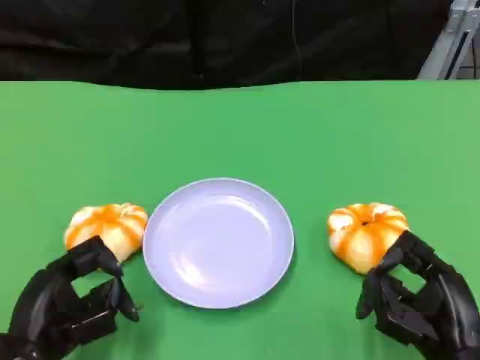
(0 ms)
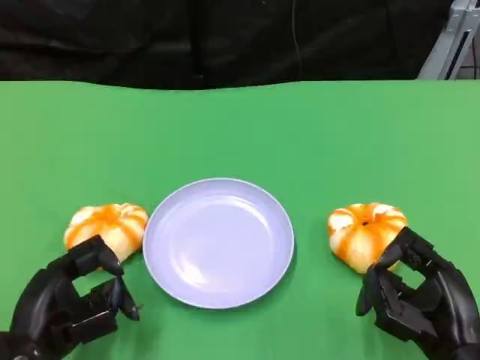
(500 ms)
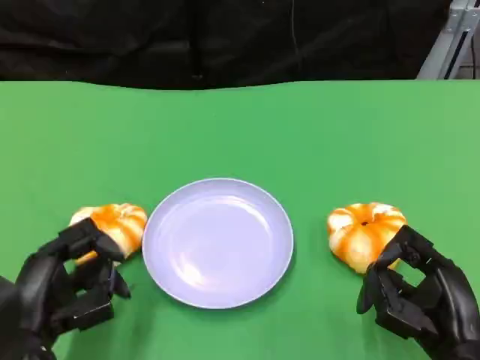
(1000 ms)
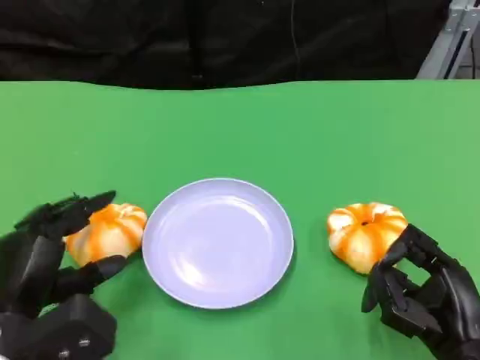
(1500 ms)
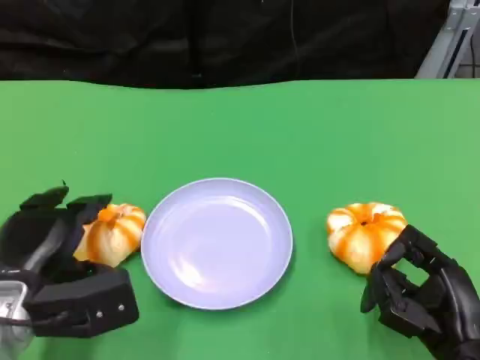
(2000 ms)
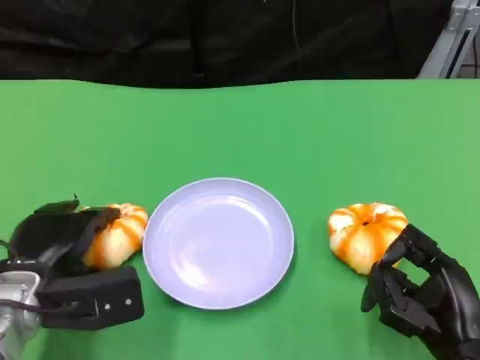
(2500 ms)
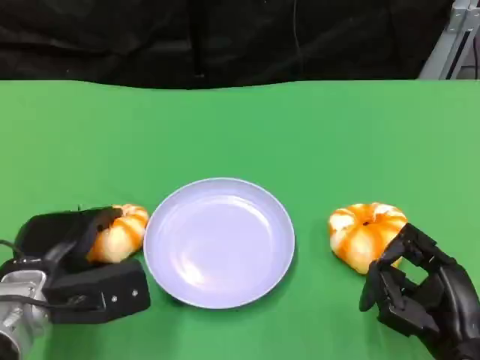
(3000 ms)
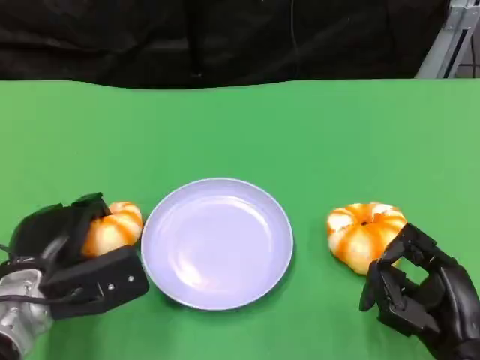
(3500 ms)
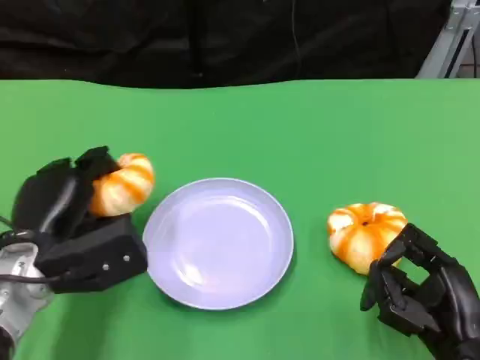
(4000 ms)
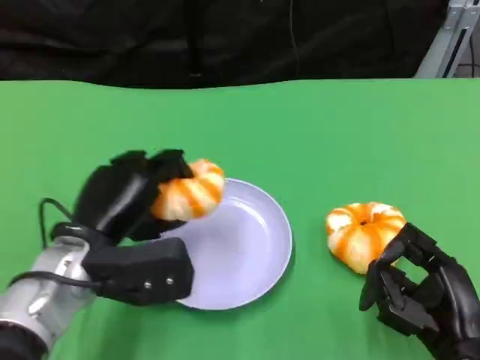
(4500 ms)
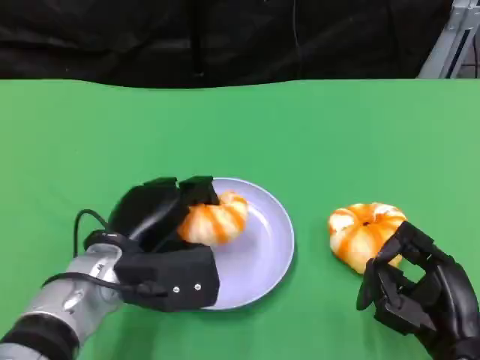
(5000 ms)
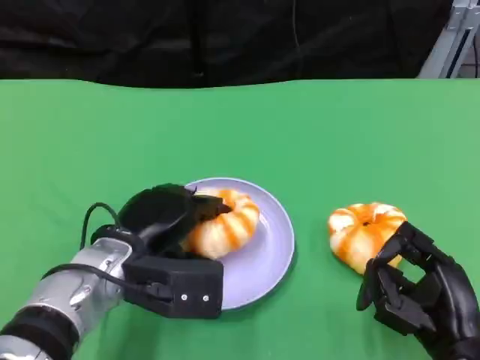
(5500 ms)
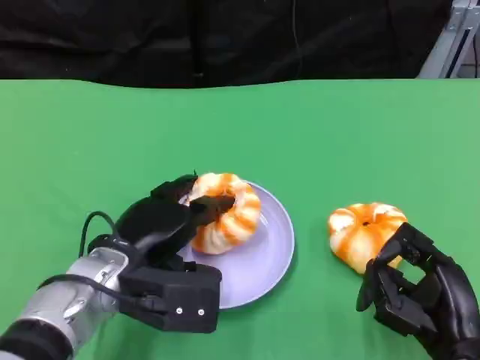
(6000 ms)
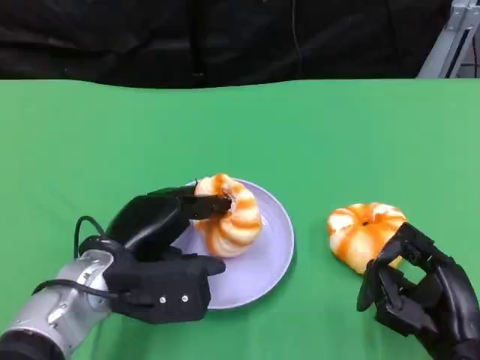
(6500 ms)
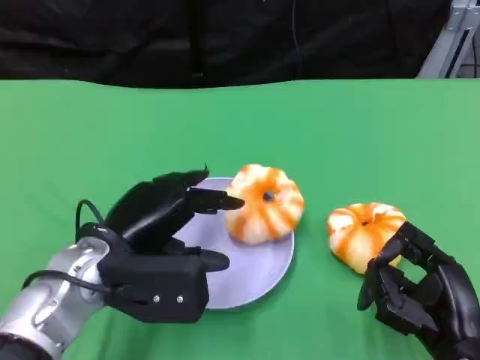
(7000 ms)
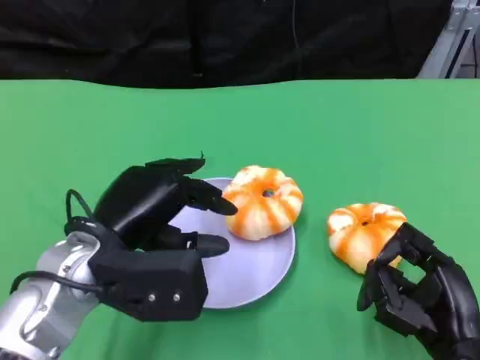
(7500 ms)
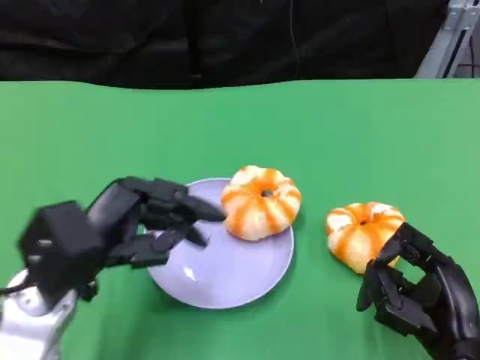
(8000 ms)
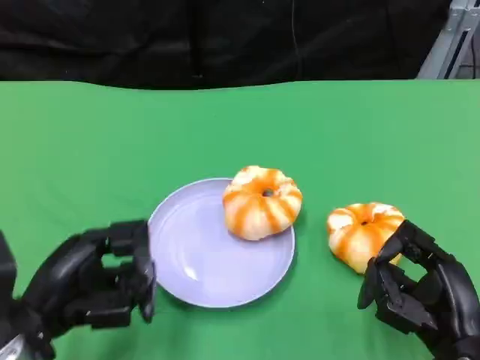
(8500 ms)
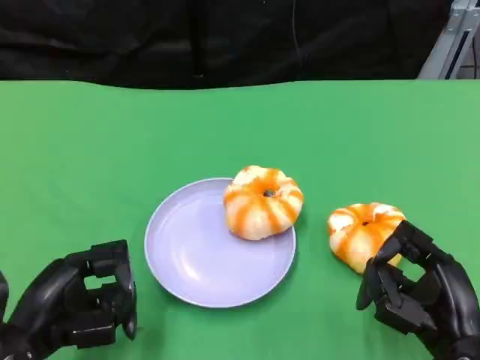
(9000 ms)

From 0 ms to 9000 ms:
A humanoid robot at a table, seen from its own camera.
Task of the whole recording: Grasp the bread from the table and place it into the plate.
From 0 ms to 2000 ms: The left hand is displaced forward by some 5 cm.
From 2000 ms to 4500 ms: The left hand moves to the right, approximately 5 cm.
From 7000 ms to 9000 ms: The left hand shifts some 10 cm to the left and backward.

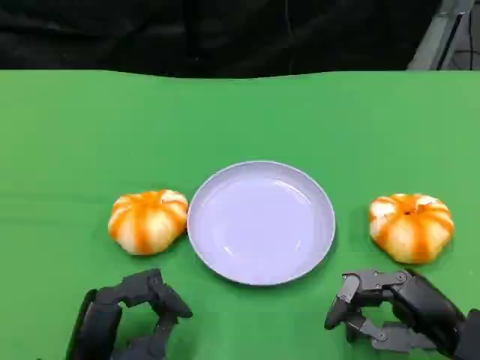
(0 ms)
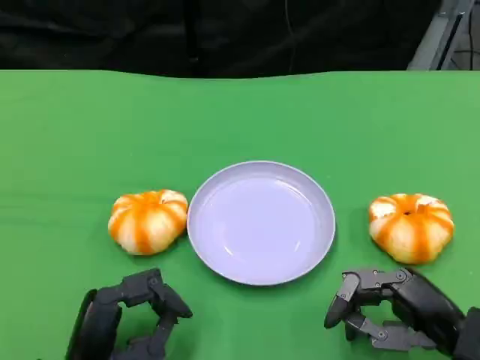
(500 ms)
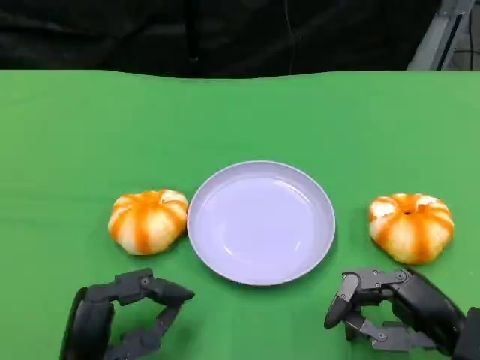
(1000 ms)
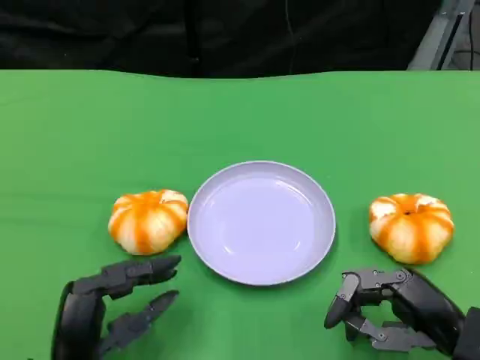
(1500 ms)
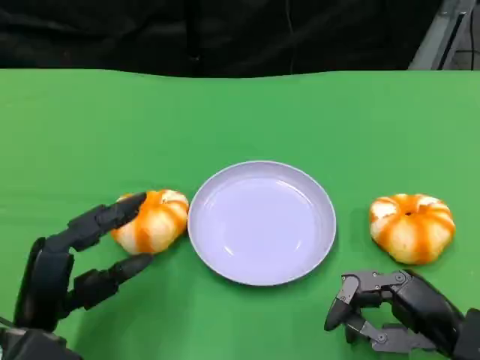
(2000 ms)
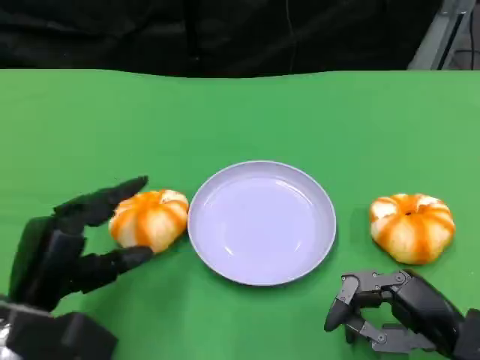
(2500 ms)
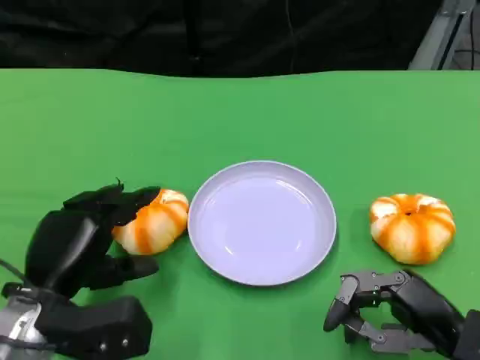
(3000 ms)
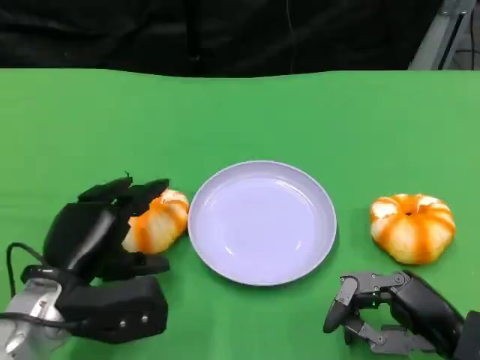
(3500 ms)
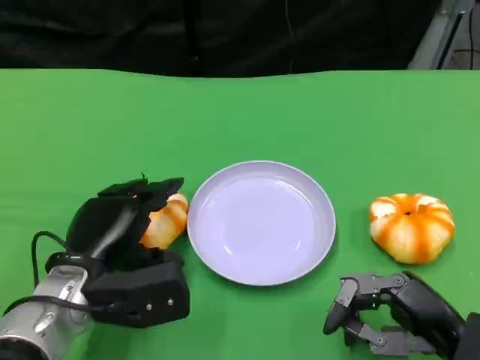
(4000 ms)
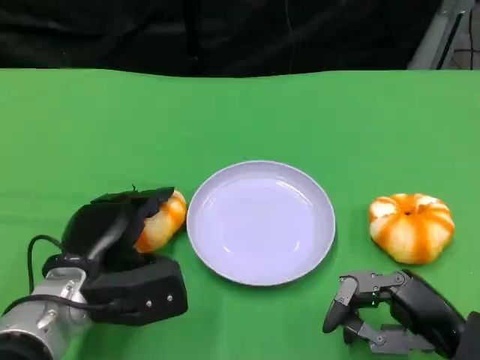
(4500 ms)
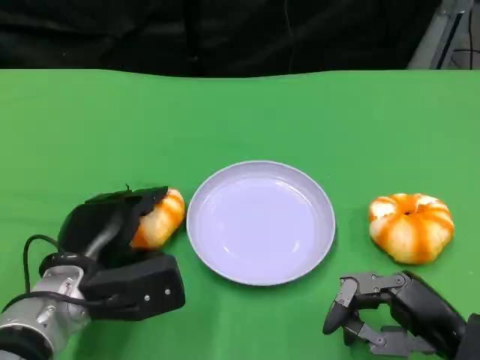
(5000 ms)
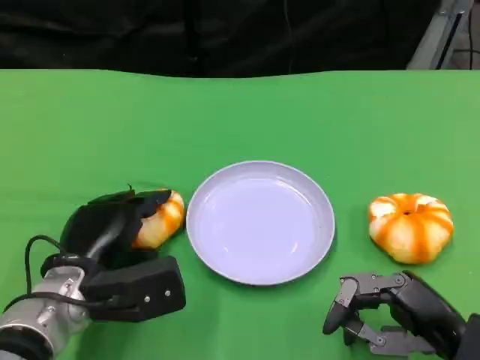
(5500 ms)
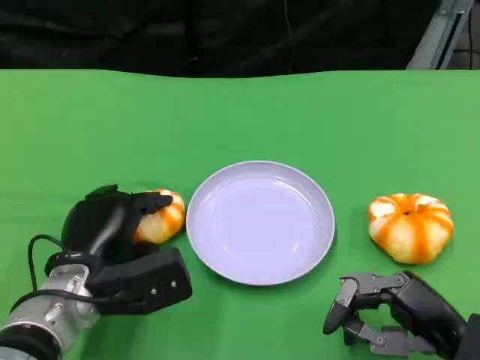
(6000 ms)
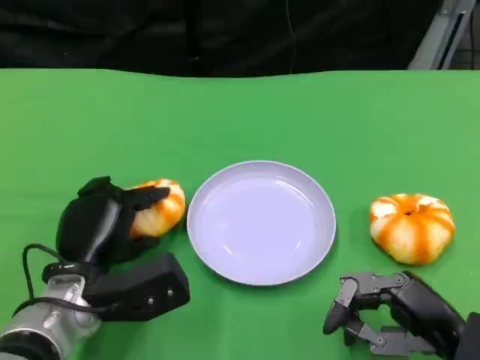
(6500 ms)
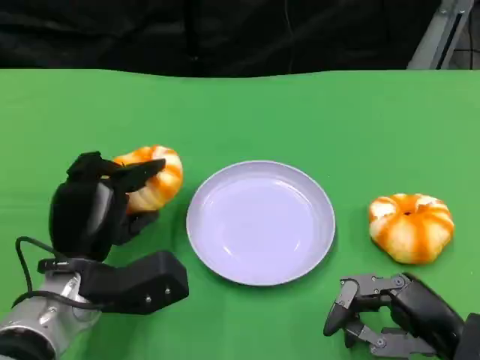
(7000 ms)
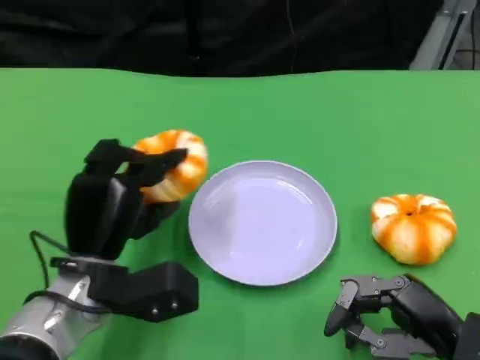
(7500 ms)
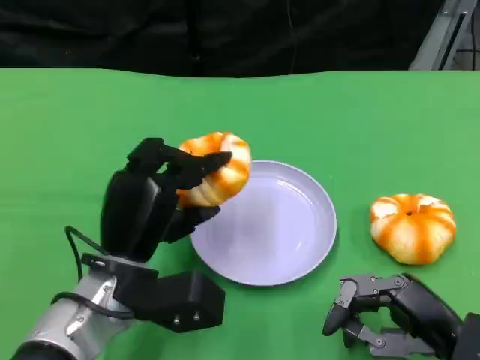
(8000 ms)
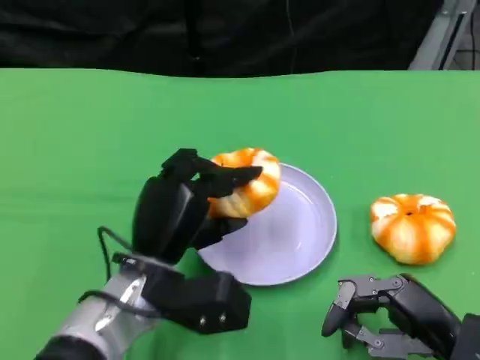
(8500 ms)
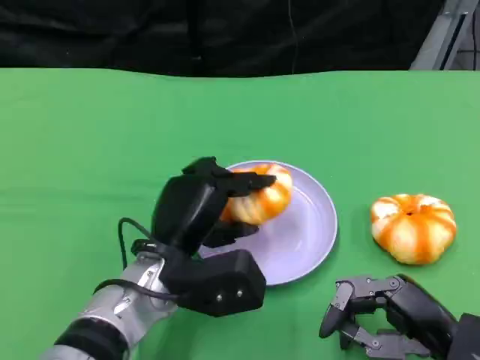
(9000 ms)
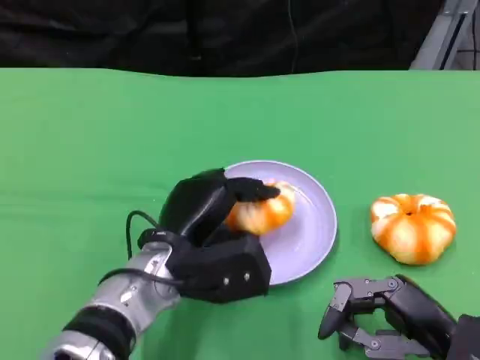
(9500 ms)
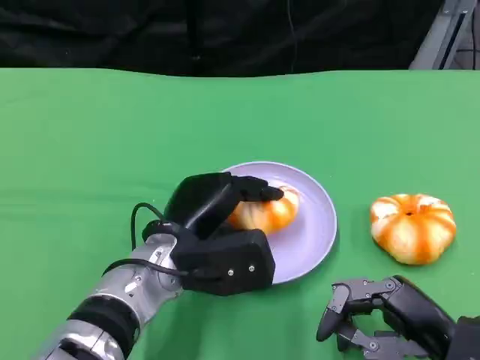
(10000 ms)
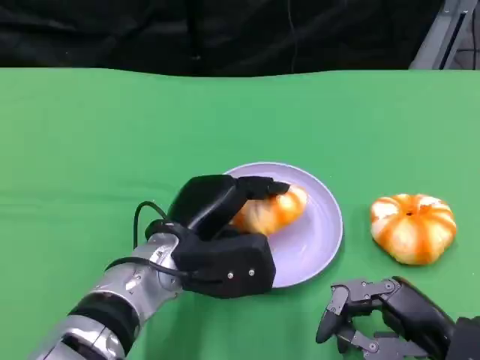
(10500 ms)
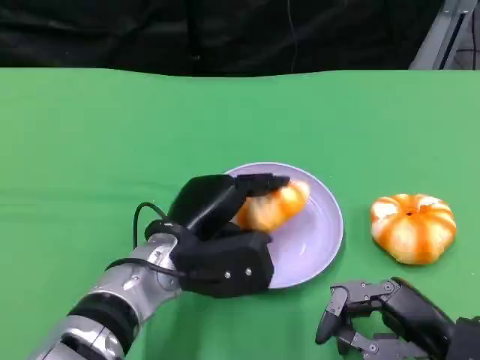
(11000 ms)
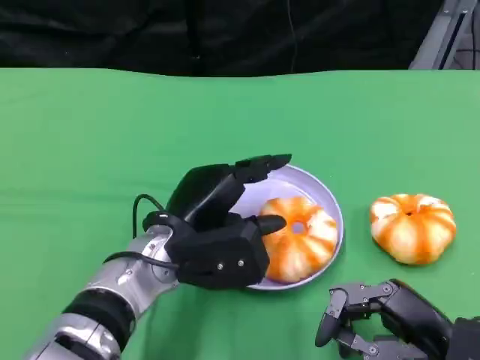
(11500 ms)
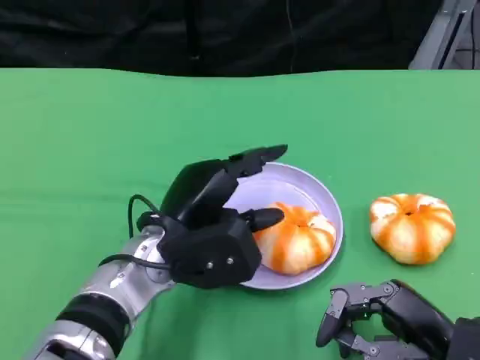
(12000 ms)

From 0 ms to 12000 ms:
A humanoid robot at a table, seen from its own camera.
Task of the whole recording: Grasp the bread from the table and place it into the plate.
From 0 ms to 2000 ms: The left hand moves roughly 5 cm.
From 2000 ms to 4000 ms: The left hand travels forward by approximately 5 cm.
From 4000 ms to 6000 ms: There are only small adjustments of the hands.
From 6000 ms to 8000 ms: The left hand moves some 5 cm.
From 8000 ms to 10000 ms: The left hand changes place by roughly 5 cm.
From 10000 ms to 12000 ms: The hands make only small movements.

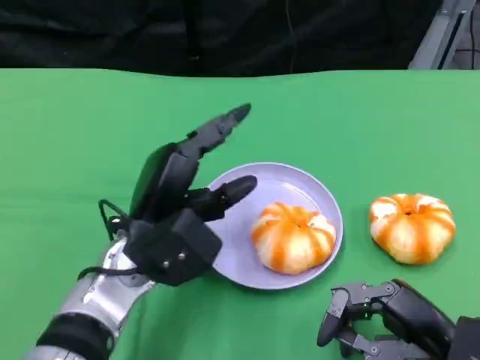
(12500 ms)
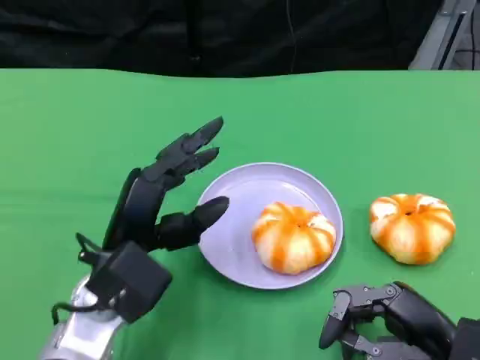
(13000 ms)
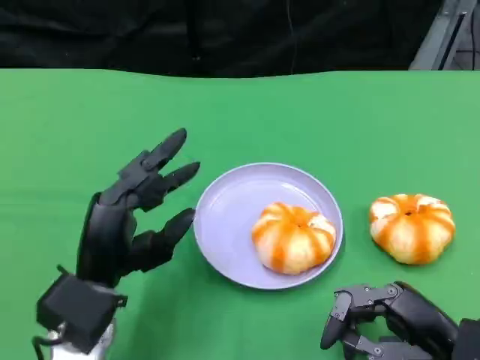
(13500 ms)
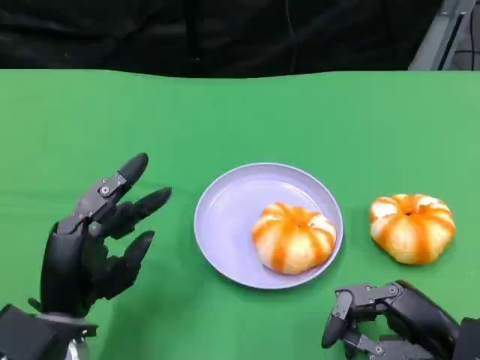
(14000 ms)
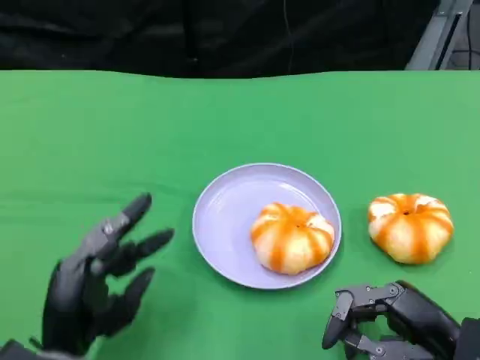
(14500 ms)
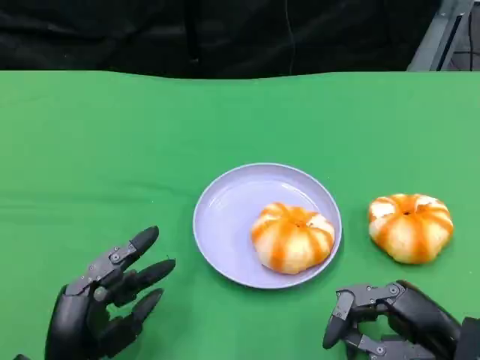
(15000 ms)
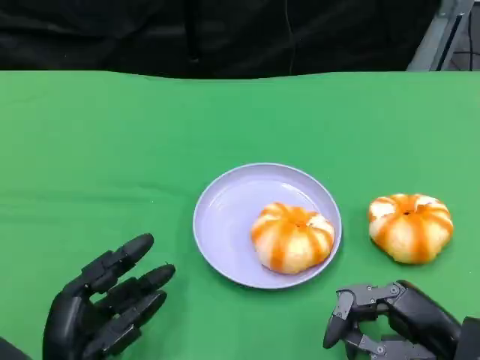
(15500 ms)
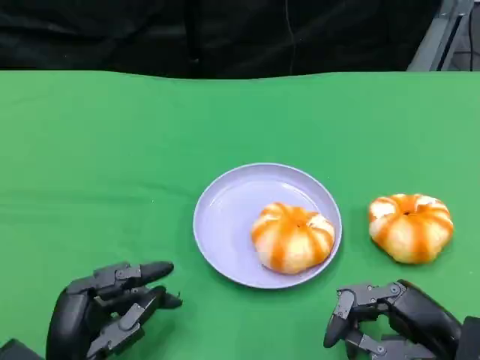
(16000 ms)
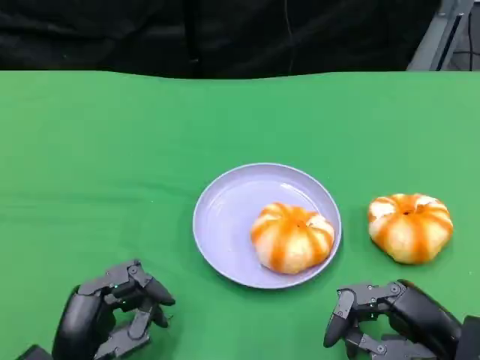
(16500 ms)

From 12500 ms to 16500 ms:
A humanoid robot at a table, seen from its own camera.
Task of the whole recording: Grasp the bread from the table and place it into the plate.
From 12500 ms to 14500 ms: The left hand is displaced backward, downward and to the left by about 15 cm.
From 14500 ms to 16500 ms: The hands make only small movements.

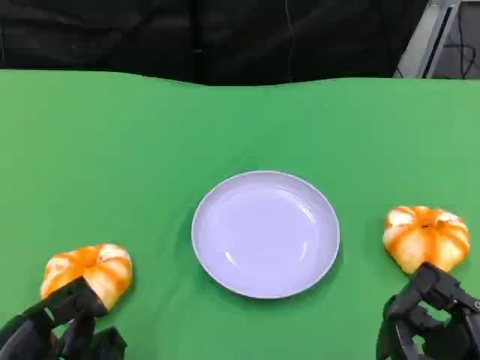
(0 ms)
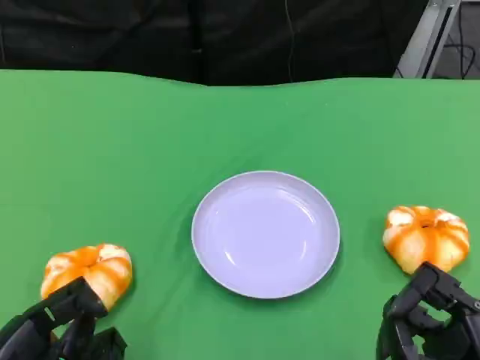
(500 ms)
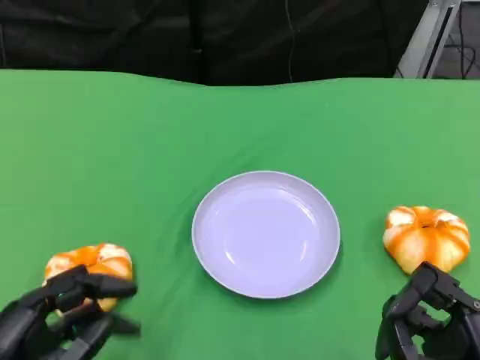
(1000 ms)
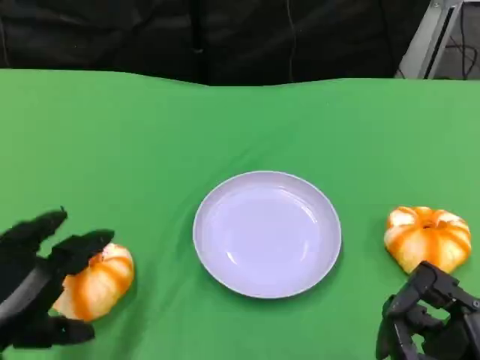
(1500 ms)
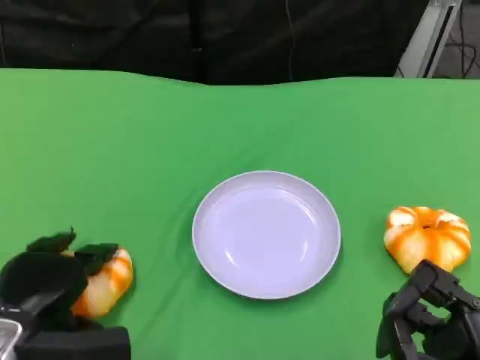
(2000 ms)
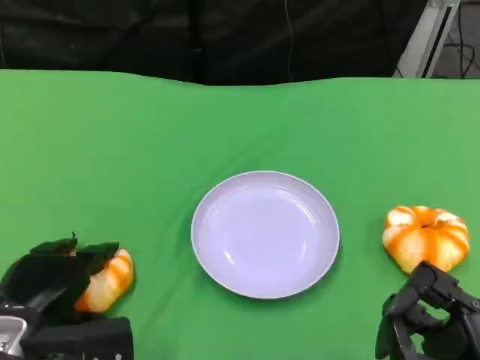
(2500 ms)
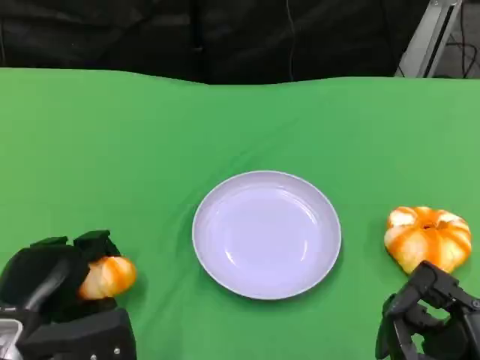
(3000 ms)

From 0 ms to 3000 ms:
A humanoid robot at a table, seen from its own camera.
Task of the whole recording: Grasp the bread from the table and place it into the plate.
From 0 ms to 1500 ms: The left hand changes place by about 5 cm.
From 1500 ms to 3000 ms: The left hand goes some 5 cm downward.
